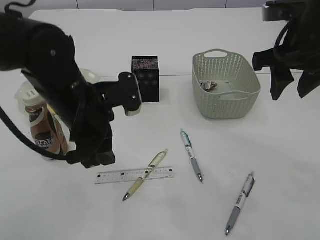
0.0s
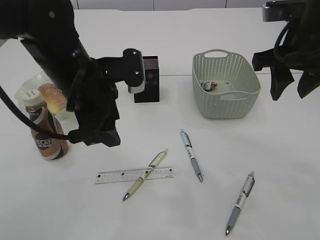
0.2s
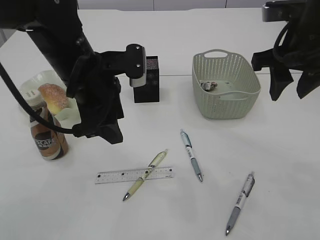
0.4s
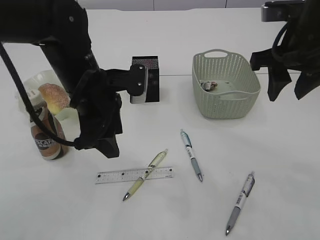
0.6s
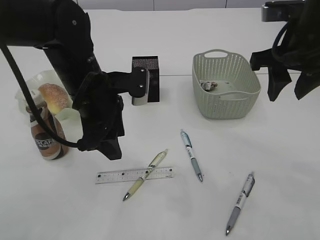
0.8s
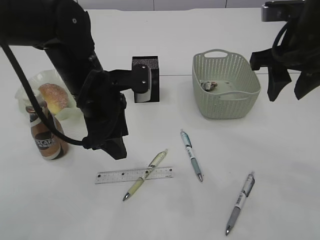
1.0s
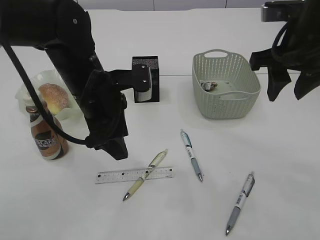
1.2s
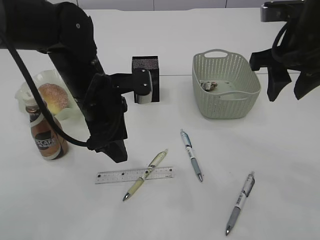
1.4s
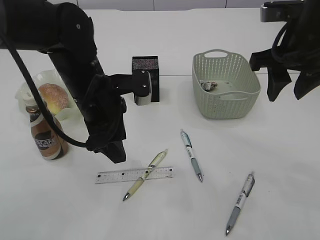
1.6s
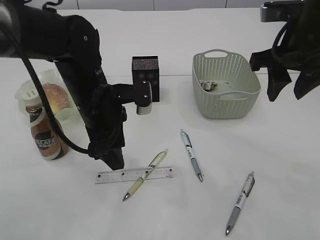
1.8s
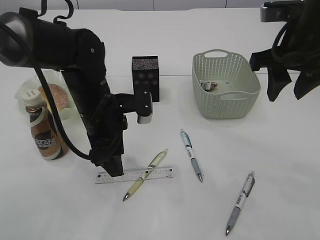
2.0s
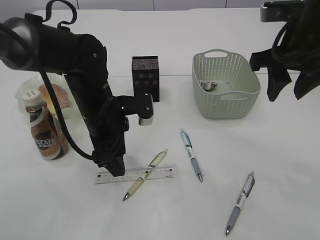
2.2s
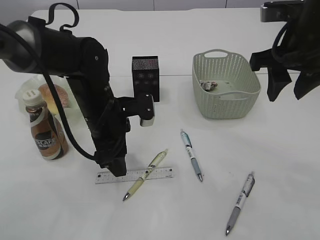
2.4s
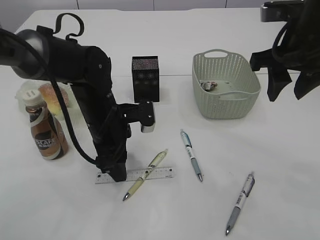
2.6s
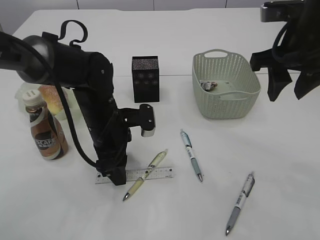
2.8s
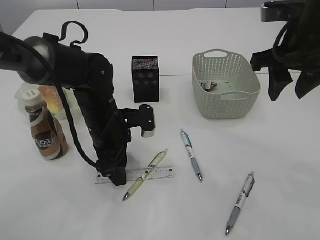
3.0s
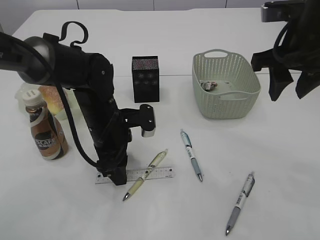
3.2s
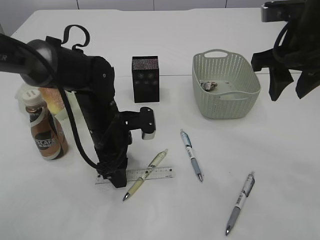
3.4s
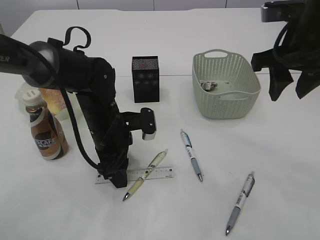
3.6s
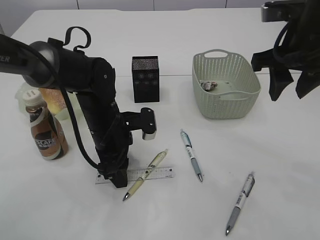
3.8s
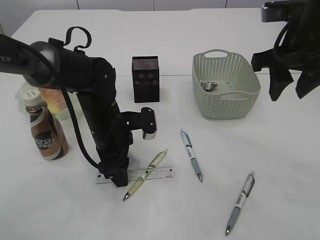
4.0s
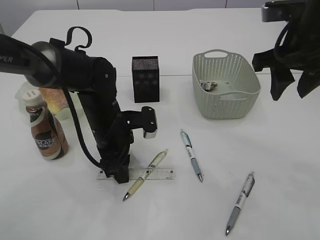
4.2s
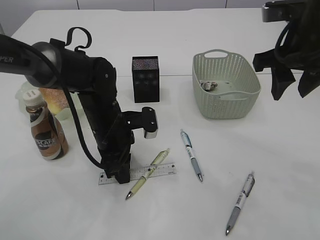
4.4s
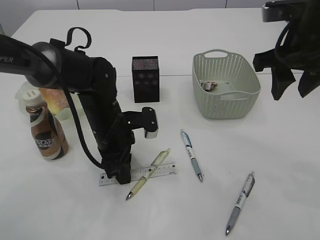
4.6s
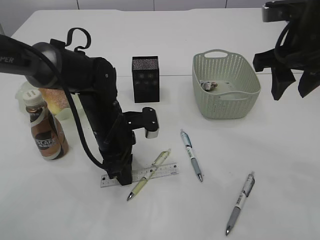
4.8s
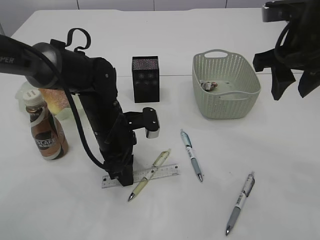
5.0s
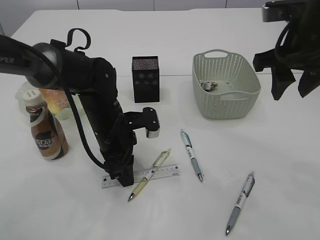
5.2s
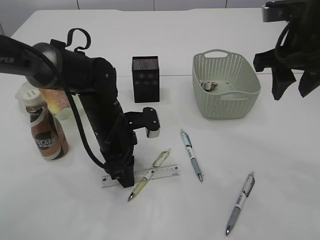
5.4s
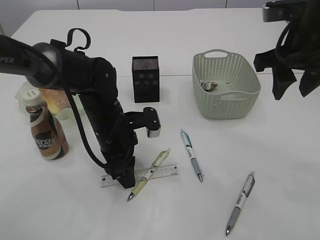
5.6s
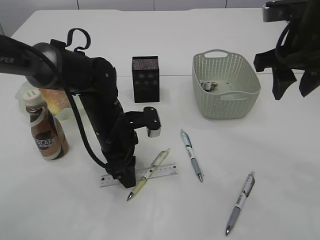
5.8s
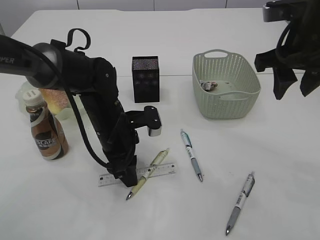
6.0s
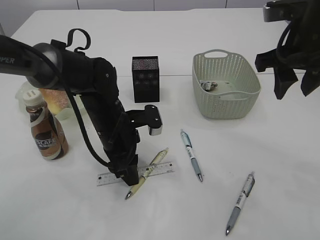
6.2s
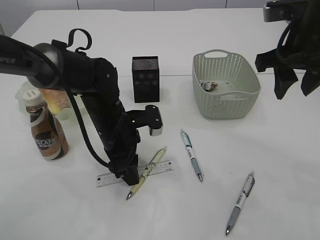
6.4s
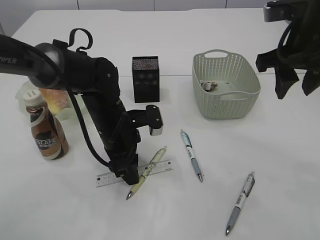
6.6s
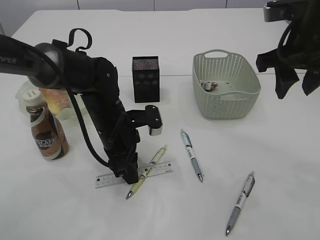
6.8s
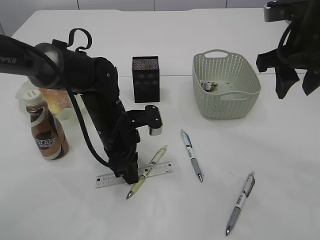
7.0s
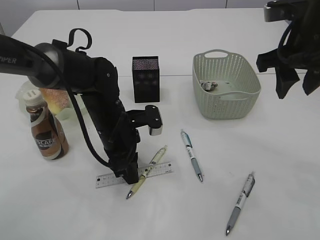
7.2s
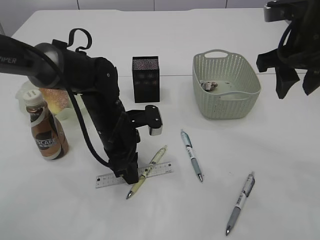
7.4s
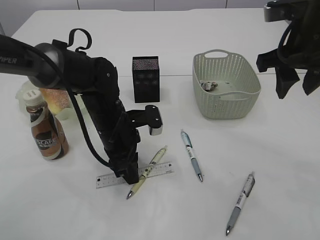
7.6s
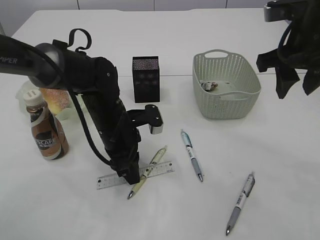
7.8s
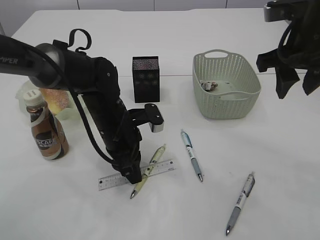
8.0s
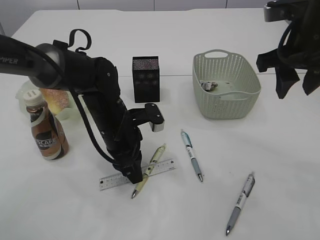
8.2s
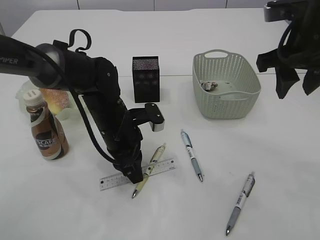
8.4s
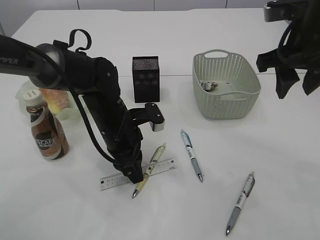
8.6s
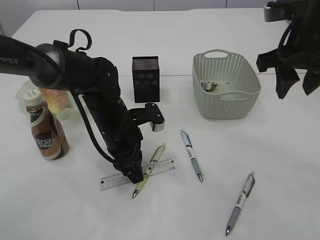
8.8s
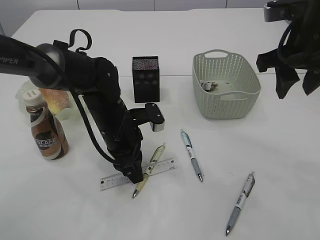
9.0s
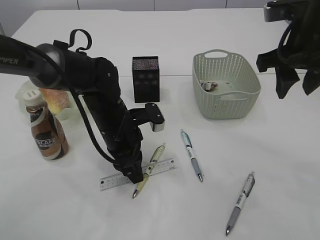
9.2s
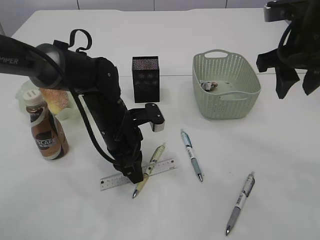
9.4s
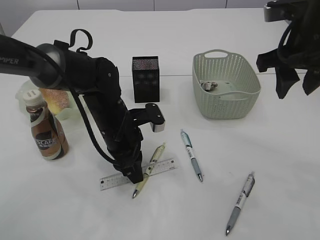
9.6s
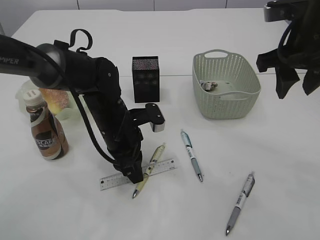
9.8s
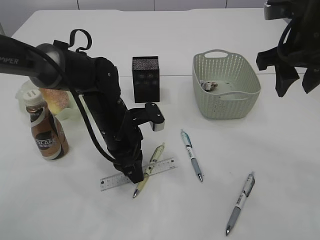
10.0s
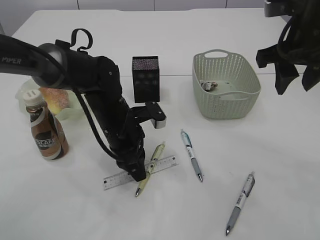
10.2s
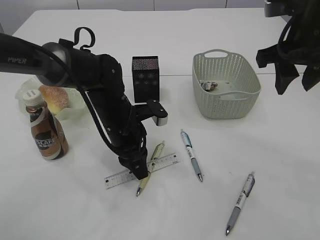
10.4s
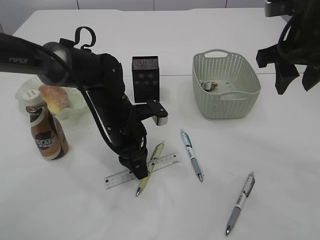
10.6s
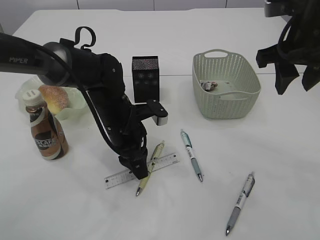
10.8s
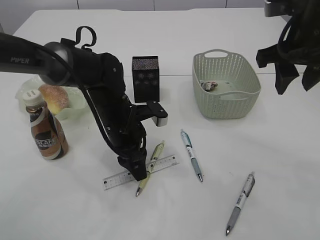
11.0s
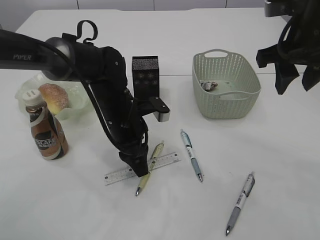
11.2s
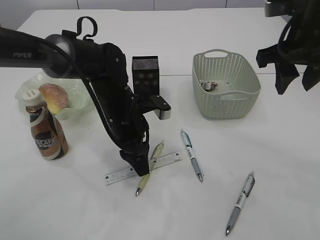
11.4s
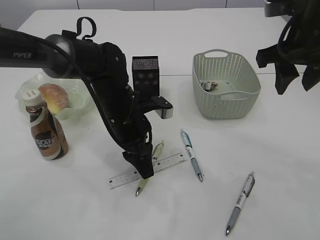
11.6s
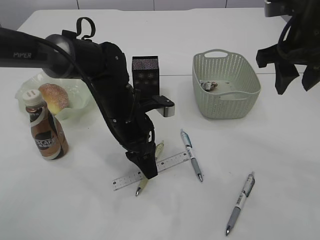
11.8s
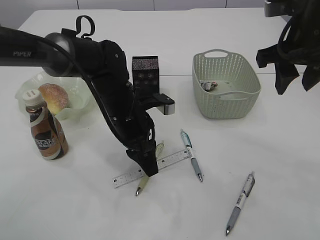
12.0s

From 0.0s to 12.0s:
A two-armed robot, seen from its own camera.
From 0.0s to 1.6s: The grippers move only a little.
From 1.6s to 3.0s: The left gripper moves downward, approximately 10 cm.
From 3.0s to 4.4s: The left gripper closes up.
From 4.4s to 7.6s: Neither gripper changes place.
From 7.6s to 9.0s: The grippers move only a little.
From 9.0s to 10.4s: Both grippers stay about where they are.
From 10.4s to 12.0s: There are only small adjustments of the grippers.

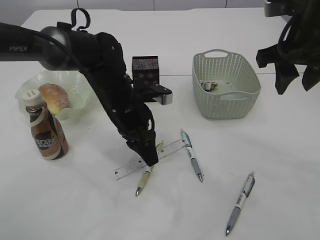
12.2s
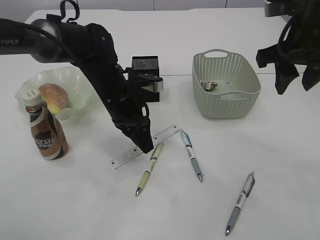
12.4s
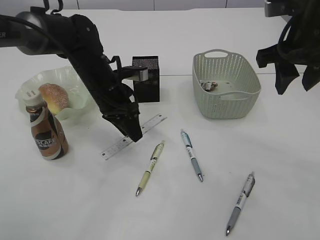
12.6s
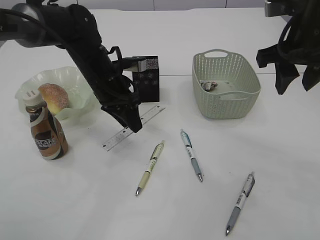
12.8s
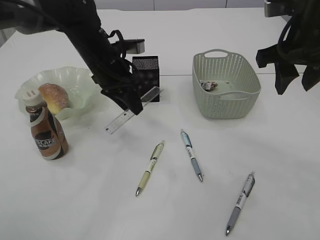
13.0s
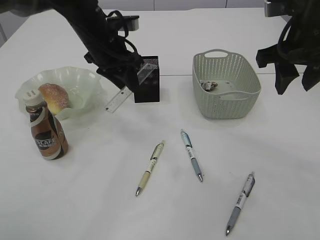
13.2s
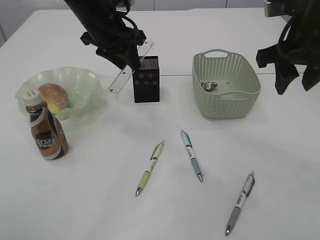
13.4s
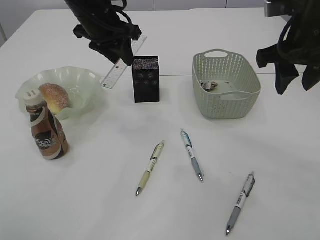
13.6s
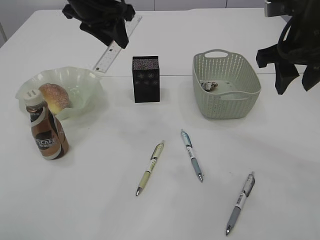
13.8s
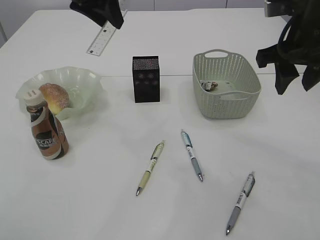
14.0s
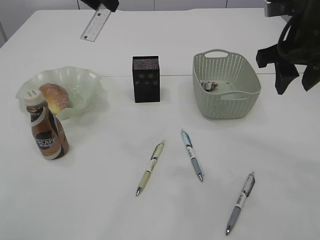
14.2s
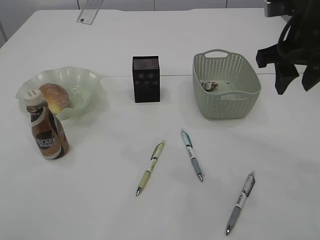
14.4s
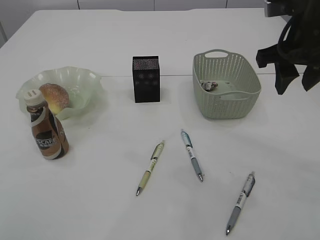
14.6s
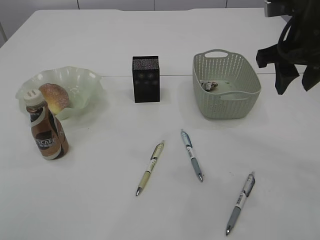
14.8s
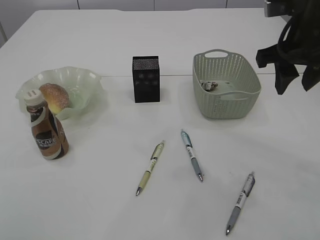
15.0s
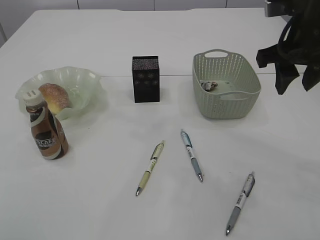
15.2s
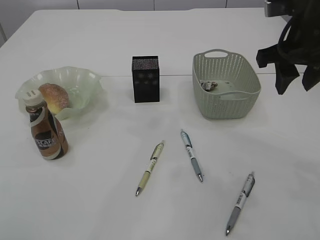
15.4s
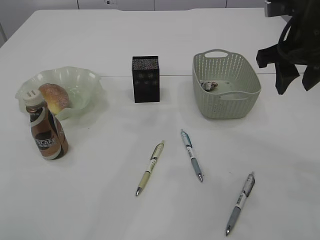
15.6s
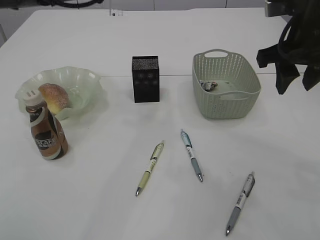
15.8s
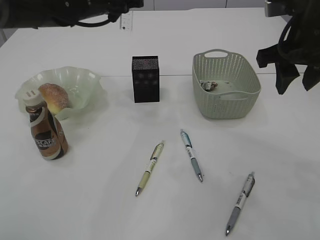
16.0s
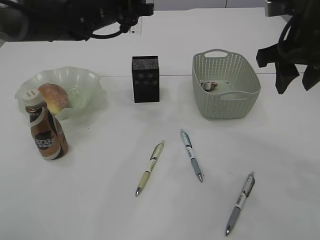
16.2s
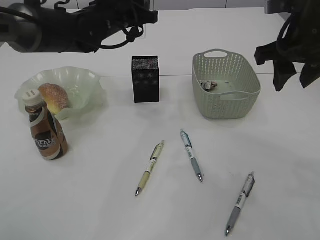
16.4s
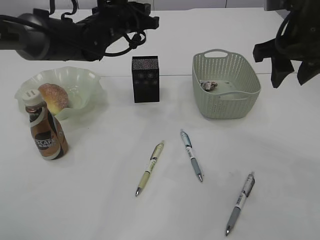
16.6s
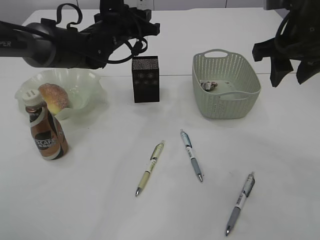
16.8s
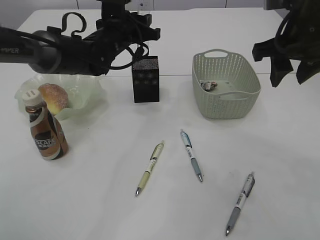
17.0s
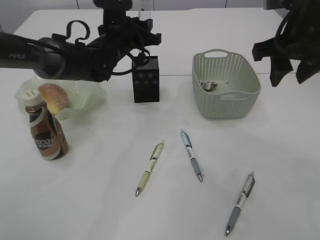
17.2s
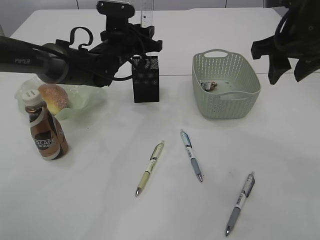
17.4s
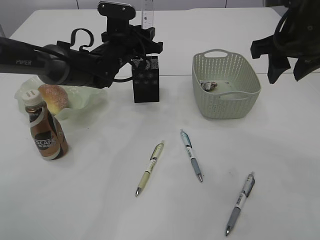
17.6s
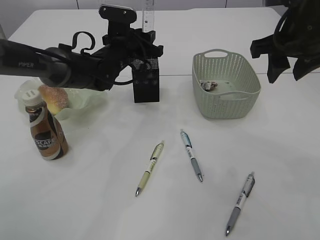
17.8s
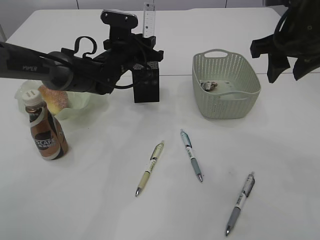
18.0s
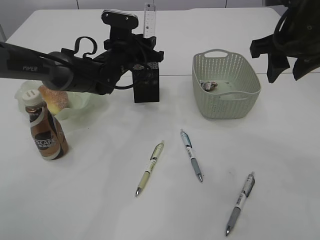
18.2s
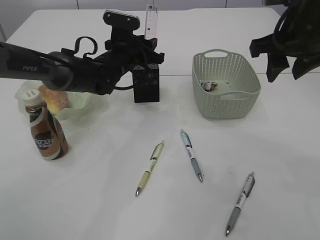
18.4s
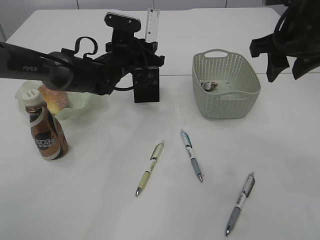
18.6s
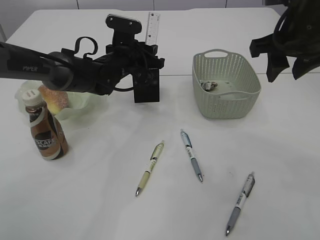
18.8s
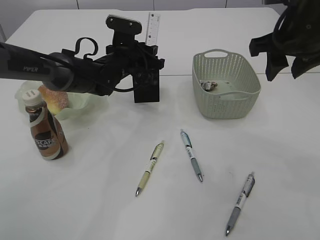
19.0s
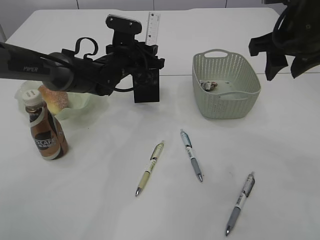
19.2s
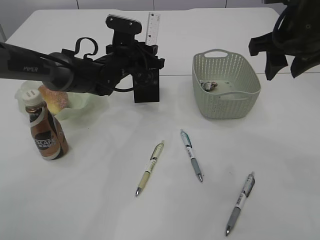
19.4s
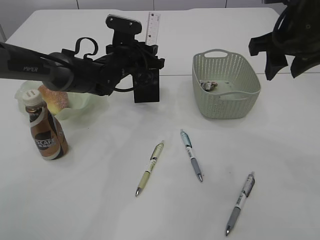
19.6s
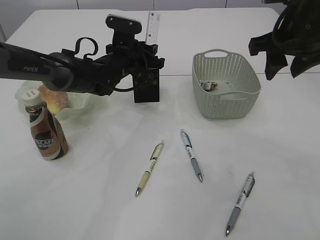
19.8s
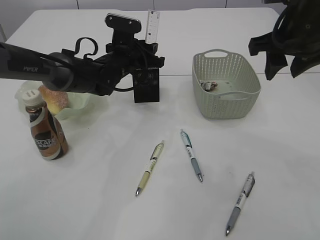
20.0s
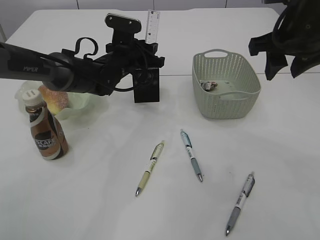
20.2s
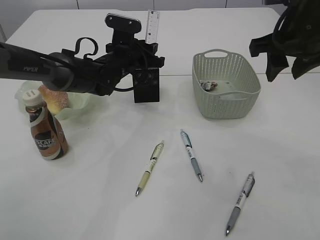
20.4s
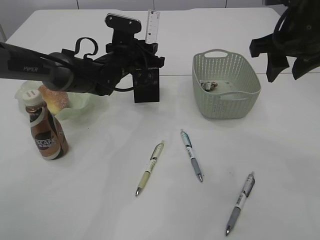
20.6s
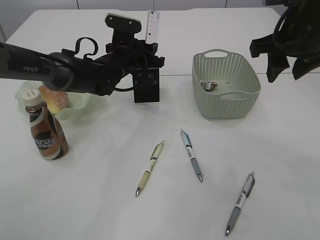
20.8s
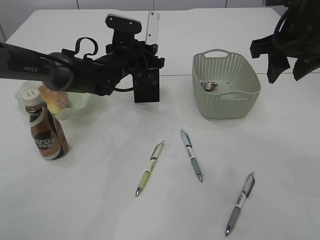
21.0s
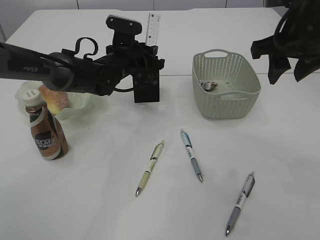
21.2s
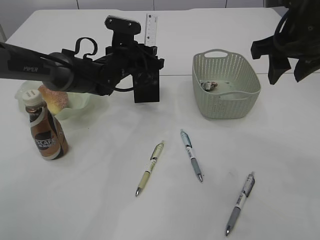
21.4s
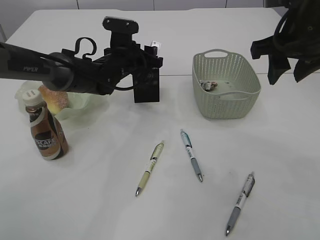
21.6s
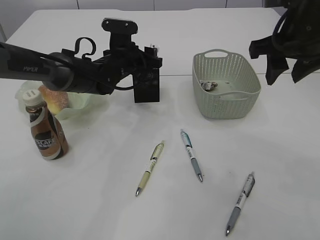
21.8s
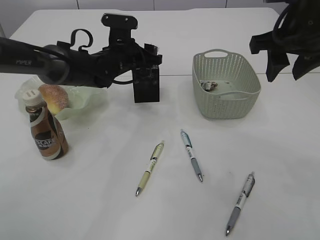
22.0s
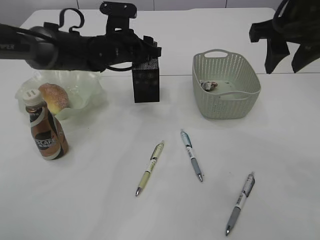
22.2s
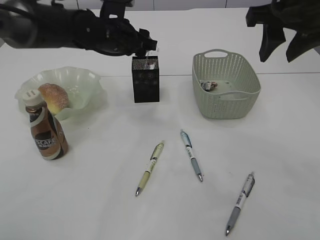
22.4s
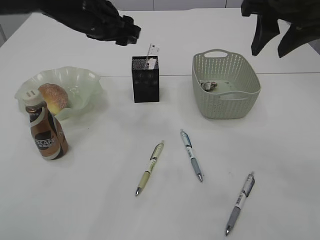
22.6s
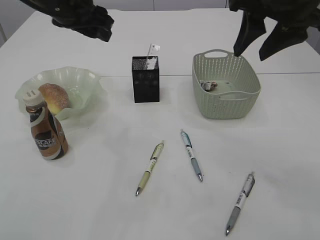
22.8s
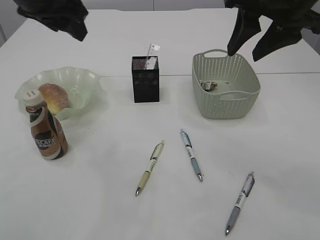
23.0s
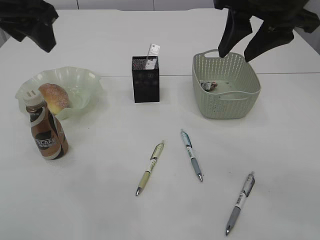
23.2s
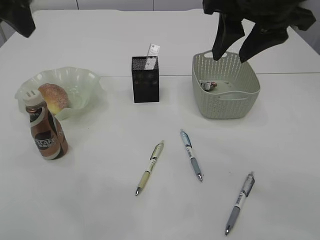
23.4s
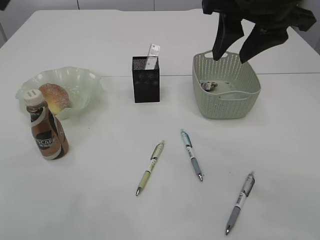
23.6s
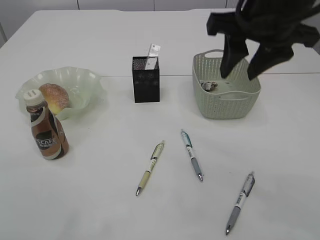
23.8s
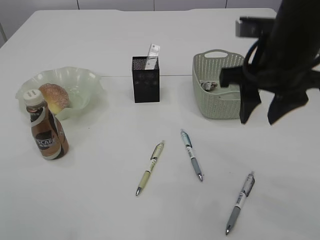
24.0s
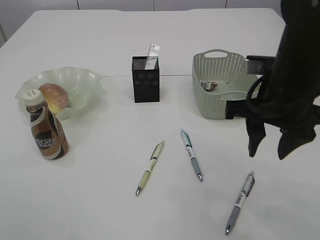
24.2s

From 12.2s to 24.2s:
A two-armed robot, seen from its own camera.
Step, from 12.8s to 22.6s: Place the ruler into the pen holder.
From 12.2s to 13.8s: The left gripper travels upward by roughly 20 cm.
From 13.8s to 15.2s: The left gripper goes some 10 cm upward.
From 15.2s to 16.6s: The left gripper travels downward by some 20 cm.
From 16.6s to 18.2s: The left gripper moves downward, roughly 10 cm.
From 18.2s to 19.8s: The grippers stay close to where they were, moving slightly.
From 19.8s to 21.2s: Neither gripper changes place.
From 21.2s to 22.6s: The left gripper moves upward, roughly 10 cm, while the right gripper changes place by some 5 cm.
From 22.6s to 24.2s: The left gripper moves backward, upward and to the left, some 35 cm. The right gripper travels downward and backward by some 10 cm.
